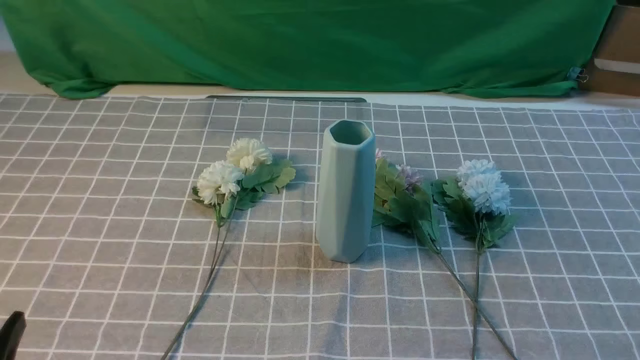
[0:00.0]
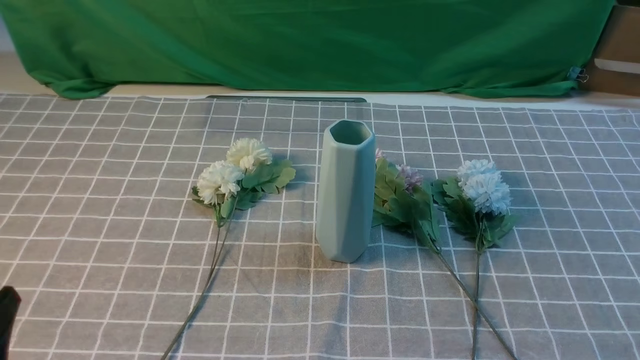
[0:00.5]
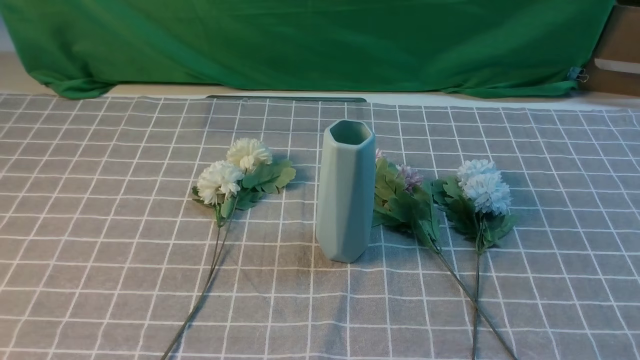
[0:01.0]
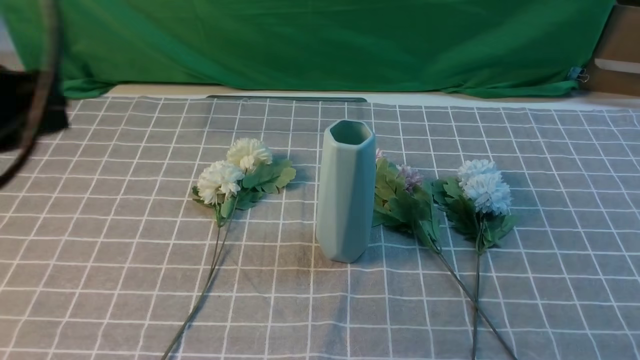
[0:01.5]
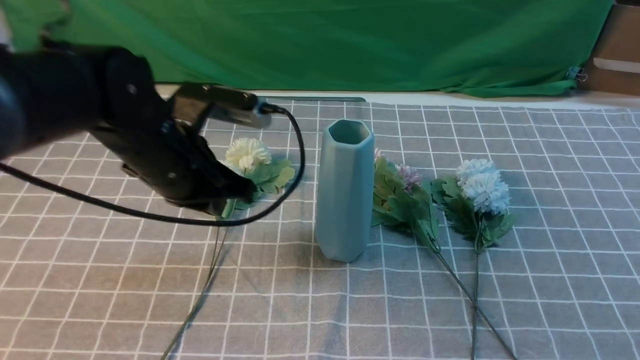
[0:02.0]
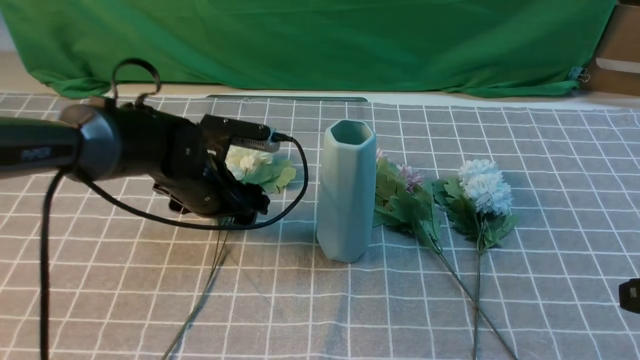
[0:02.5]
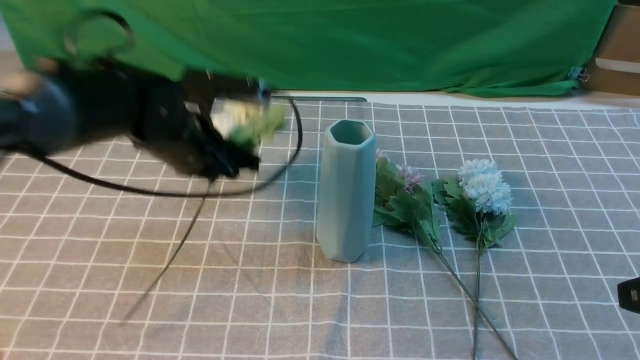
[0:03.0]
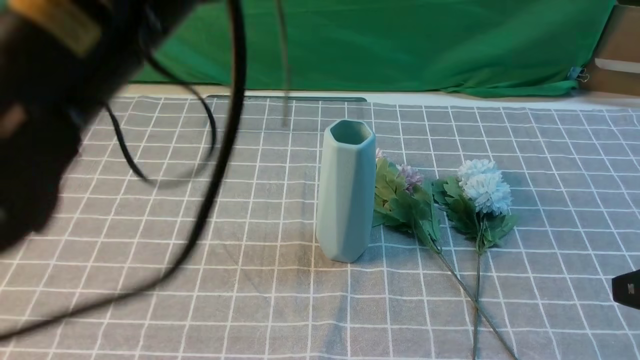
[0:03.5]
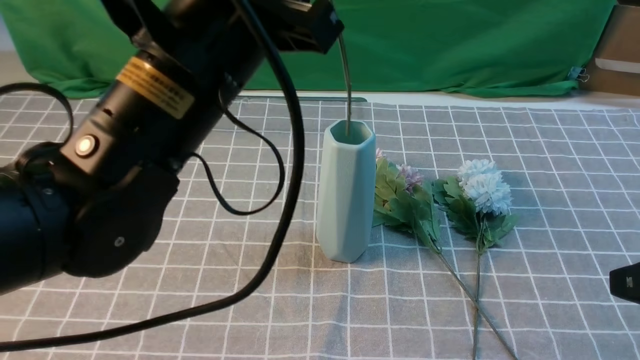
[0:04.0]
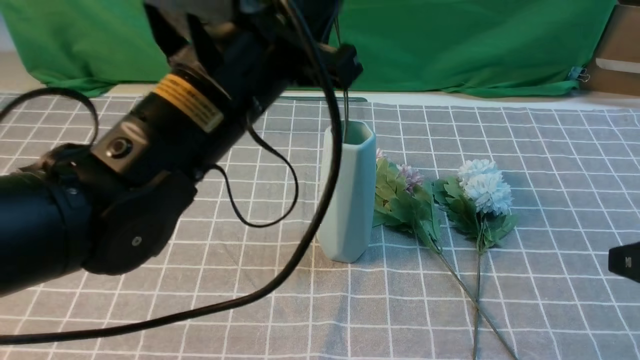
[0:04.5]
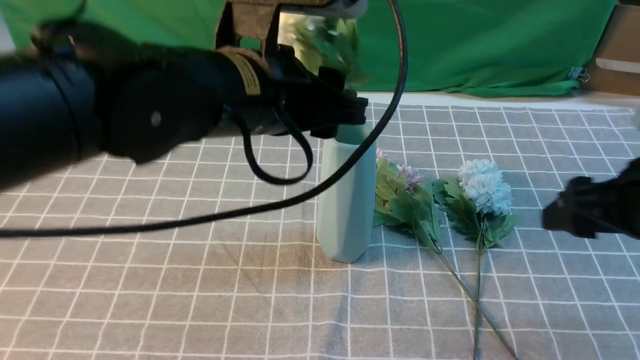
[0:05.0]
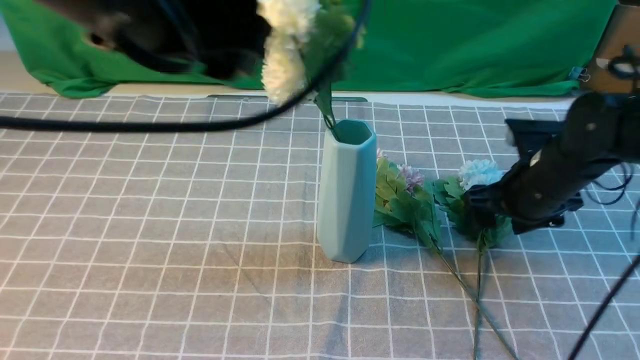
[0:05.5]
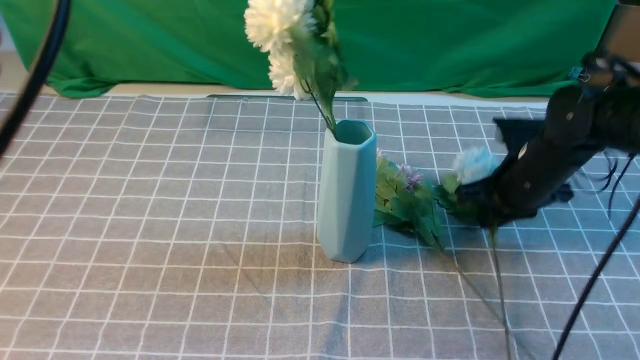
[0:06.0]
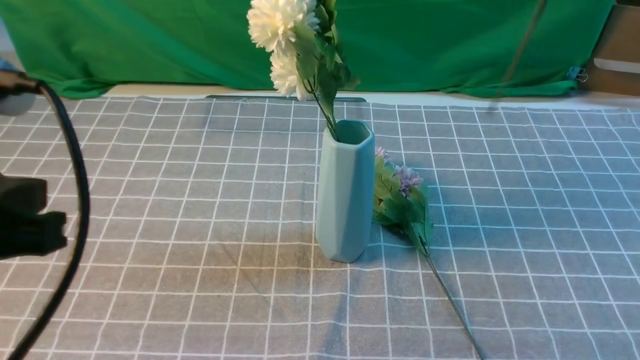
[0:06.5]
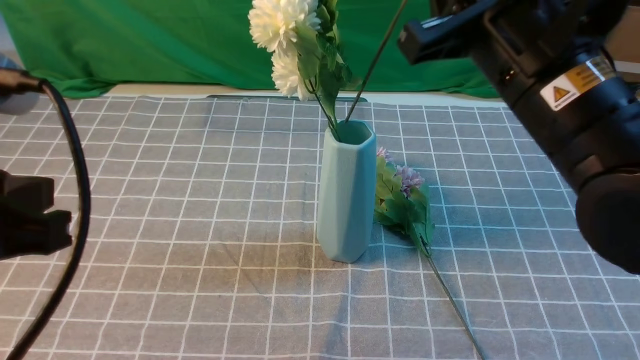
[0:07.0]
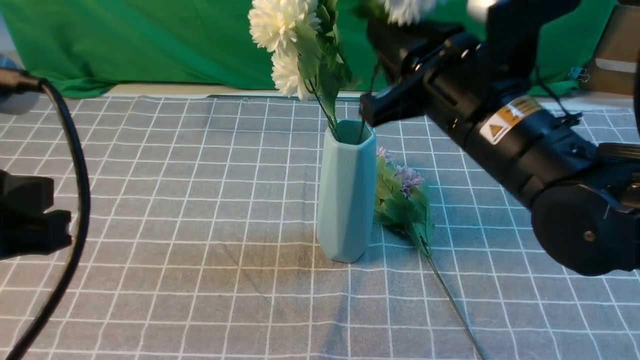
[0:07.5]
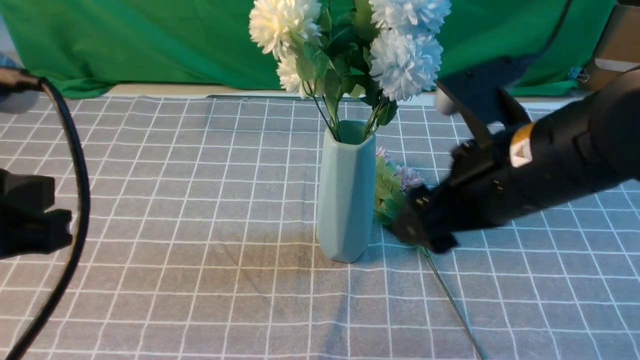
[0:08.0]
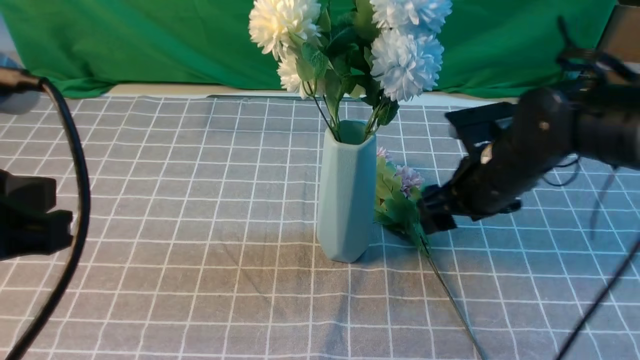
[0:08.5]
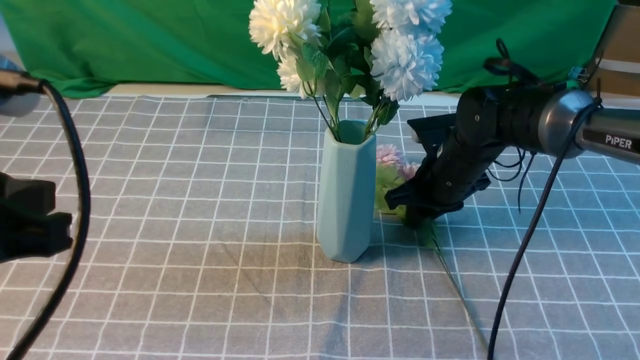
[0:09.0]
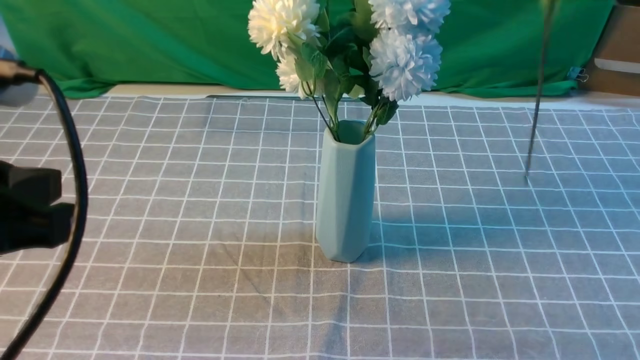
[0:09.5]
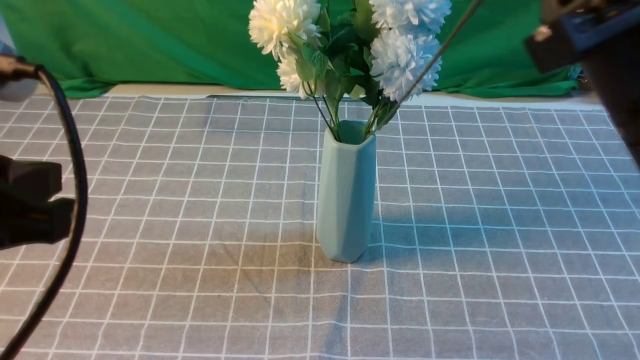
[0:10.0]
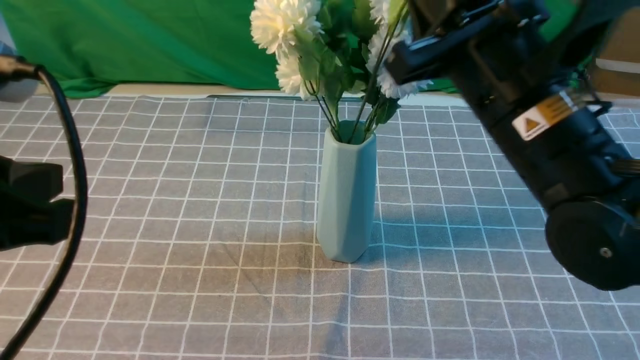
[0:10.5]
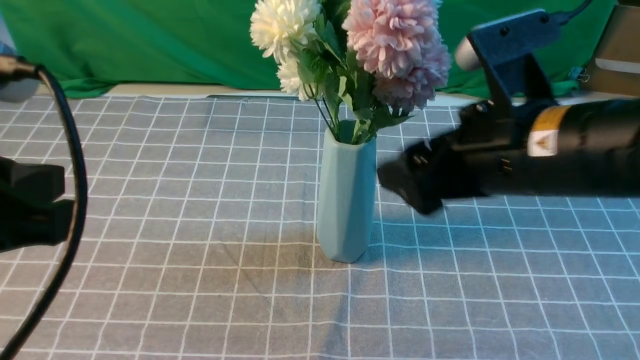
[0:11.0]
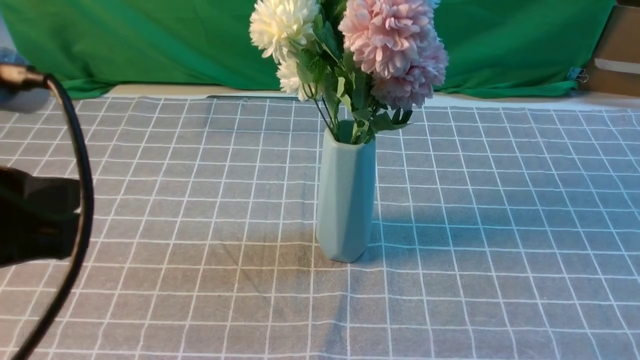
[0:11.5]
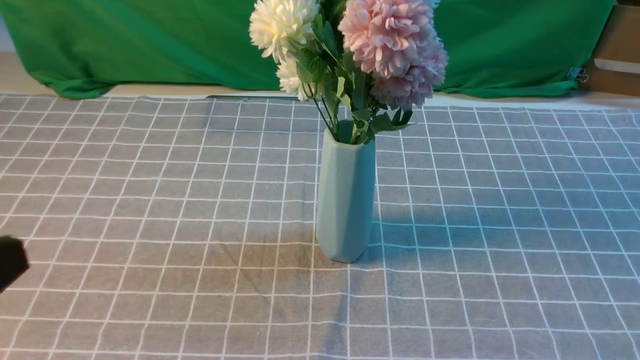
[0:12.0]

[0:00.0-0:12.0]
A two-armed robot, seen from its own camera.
Task of the whole recording: insert the flowers into the vase on the table with the grey tablecloth.
Step, 0:00.0 to 0:02.5: use the left arm to grab a bunch of fresh flowers.
Step, 0:03.0 to 0:05.0: use the left arm to insert the flowers into the vase.
Step, 0:06.0 to 0:07.5: use the right arm to insert the flowers into the vase.
Step, 0:08.0 to 0:08.5: use the right arm to grab a bunch of fresh flowers.
Step, 0:09.5 to 0:11.0: use the right arm to insert the flowers into the vase.
0:00.0 to 0:02.0: The right gripper is displaced upward by approximately 10 cm. The left gripper is displaced forward by about 30 cm.
0:02.0 to 0:04.0: The right gripper is displaced forward by approximately 5 cm. The left gripper goes approximately 20 cm upward, backward and to the right, and opens and closes again.
0:04.0 to 0:06.0: The right gripper shifts roughly 25 cm forward, and opens and closes again, while the left gripper heads to the left, backward and upward, covering some 15 cm, and opens, then closes once more.
0:06.0 to 0:08.0: The left gripper travels downward by roughly 10 cm, while the right gripper heads backward and to the left, covering some 15 cm, moves some 20 cm upward and comes back, and opens its fingers.
0:08.0 to 0:10.0: The right gripper shifts approximately 10 cm upward and backward, and closes its fingers.
0:10.0 to 0:12.0: The right gripper goes approximately 25 cm backward and to the right, and opens, then closes again; the left gripper goes some 10 cm backward.
